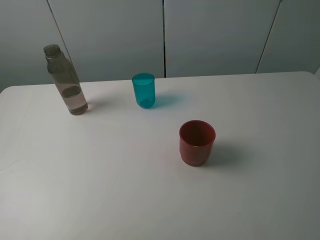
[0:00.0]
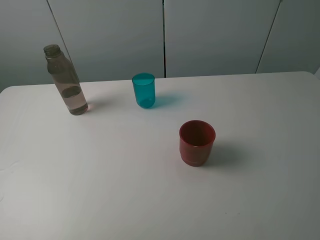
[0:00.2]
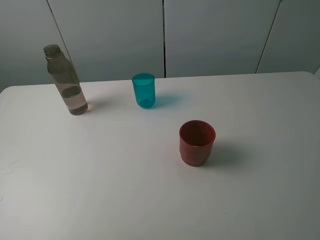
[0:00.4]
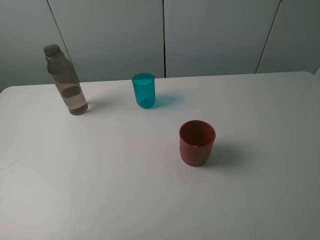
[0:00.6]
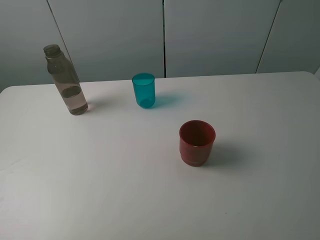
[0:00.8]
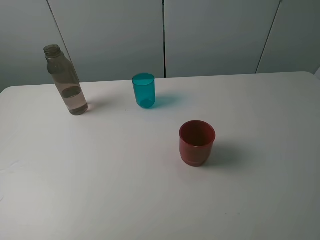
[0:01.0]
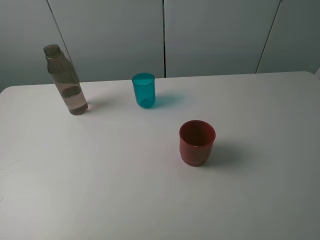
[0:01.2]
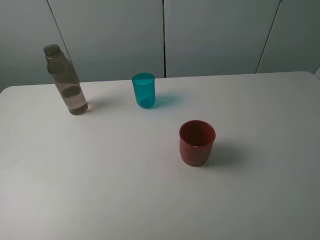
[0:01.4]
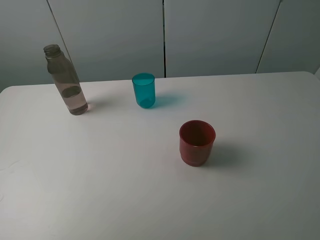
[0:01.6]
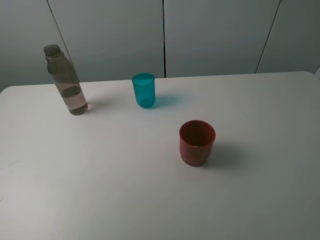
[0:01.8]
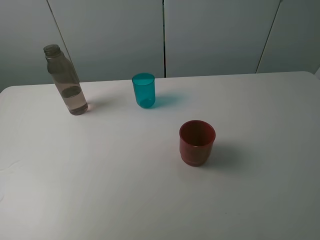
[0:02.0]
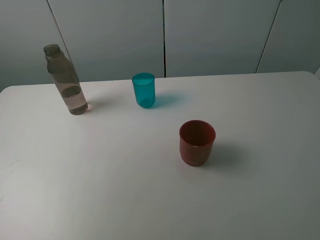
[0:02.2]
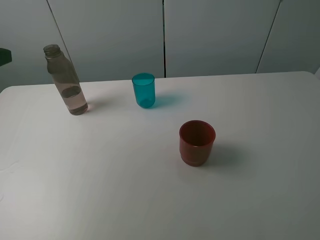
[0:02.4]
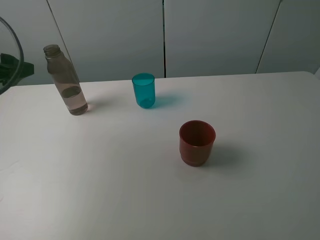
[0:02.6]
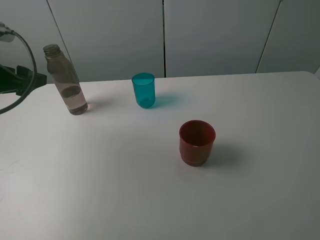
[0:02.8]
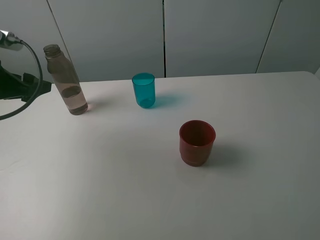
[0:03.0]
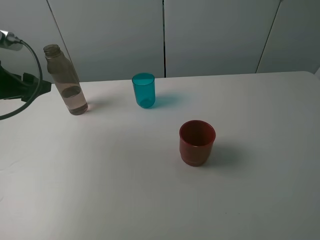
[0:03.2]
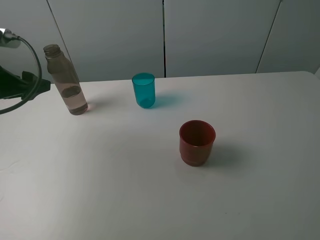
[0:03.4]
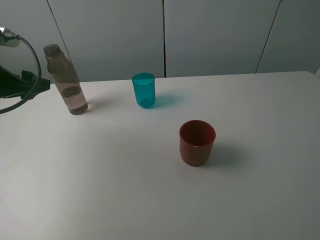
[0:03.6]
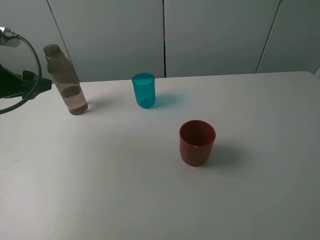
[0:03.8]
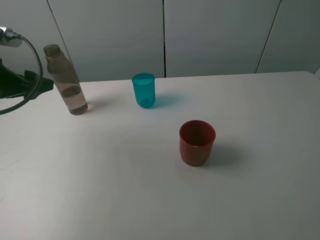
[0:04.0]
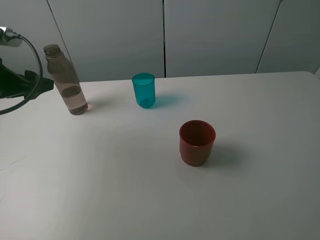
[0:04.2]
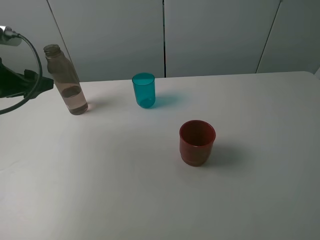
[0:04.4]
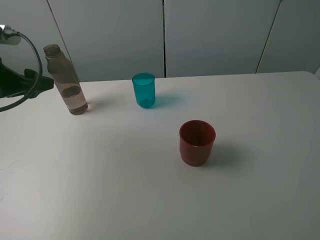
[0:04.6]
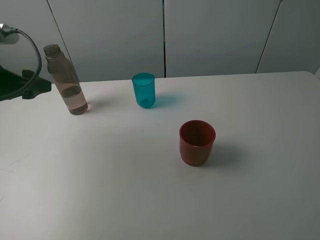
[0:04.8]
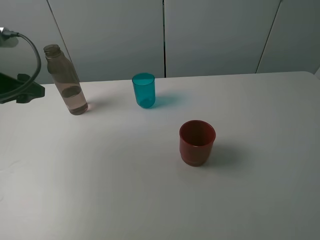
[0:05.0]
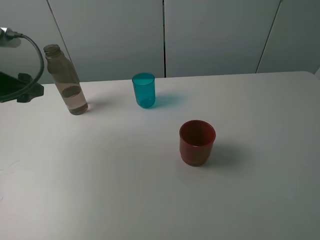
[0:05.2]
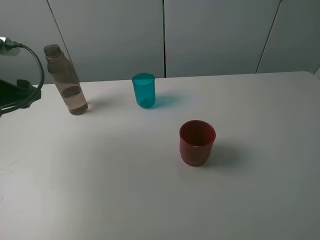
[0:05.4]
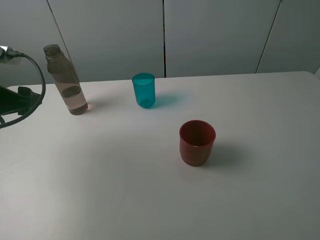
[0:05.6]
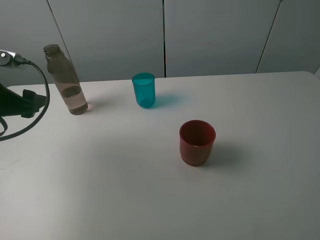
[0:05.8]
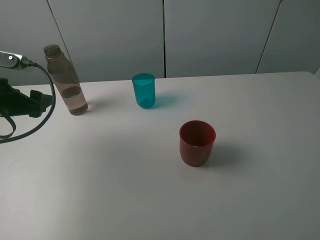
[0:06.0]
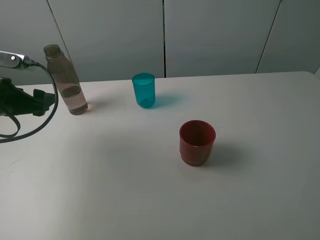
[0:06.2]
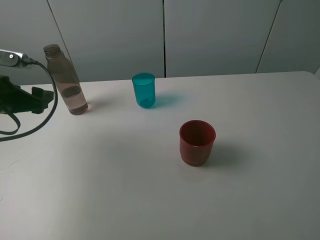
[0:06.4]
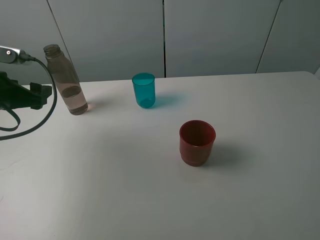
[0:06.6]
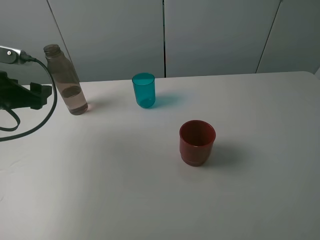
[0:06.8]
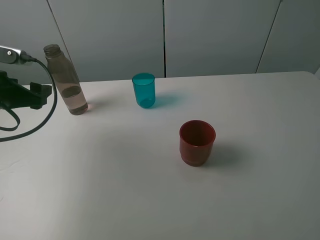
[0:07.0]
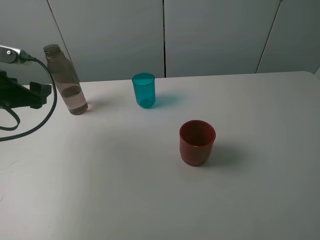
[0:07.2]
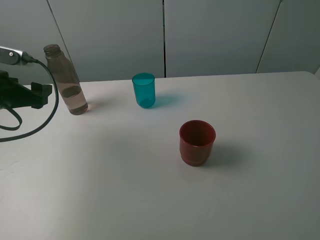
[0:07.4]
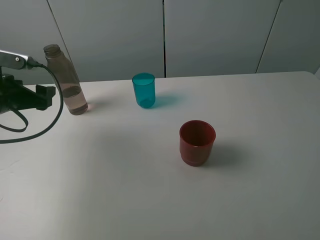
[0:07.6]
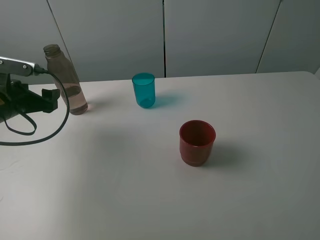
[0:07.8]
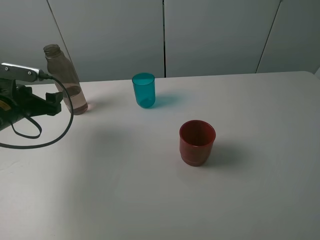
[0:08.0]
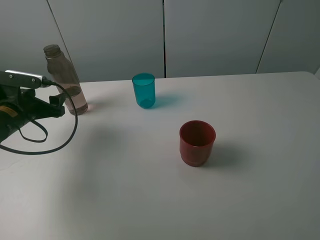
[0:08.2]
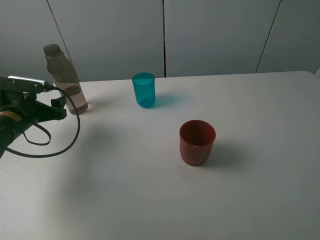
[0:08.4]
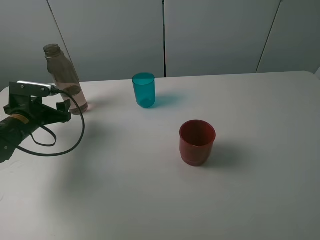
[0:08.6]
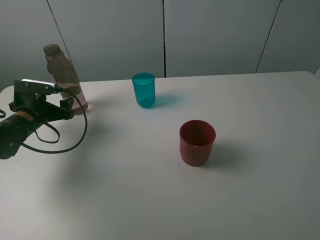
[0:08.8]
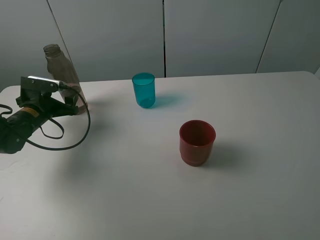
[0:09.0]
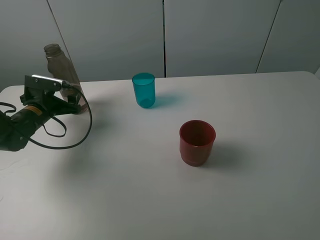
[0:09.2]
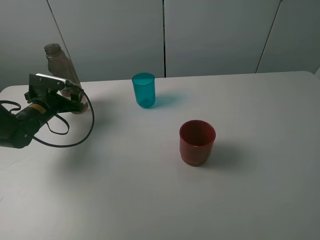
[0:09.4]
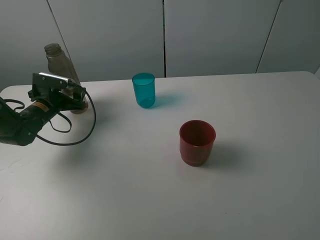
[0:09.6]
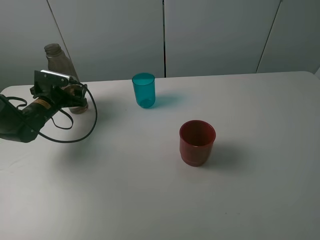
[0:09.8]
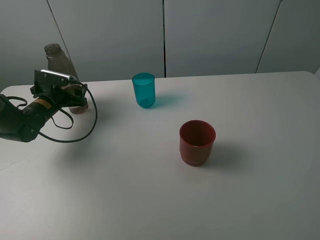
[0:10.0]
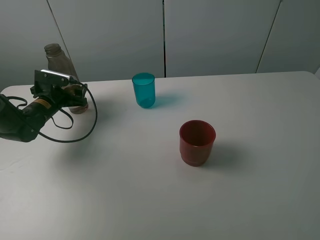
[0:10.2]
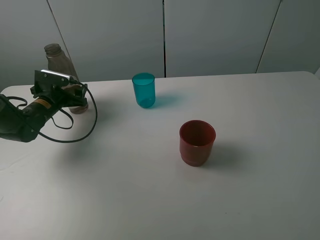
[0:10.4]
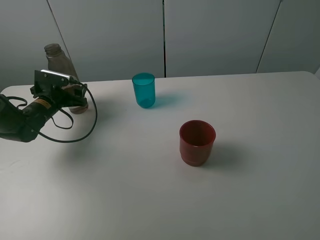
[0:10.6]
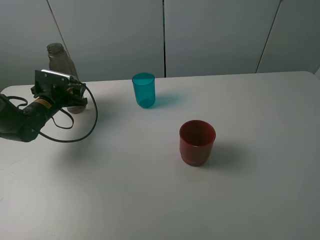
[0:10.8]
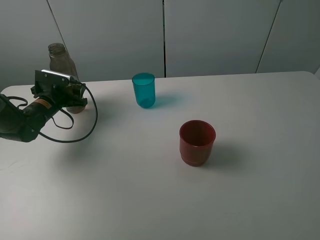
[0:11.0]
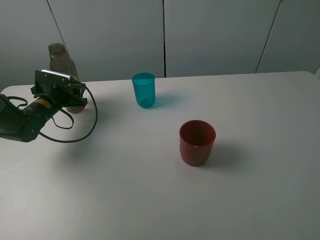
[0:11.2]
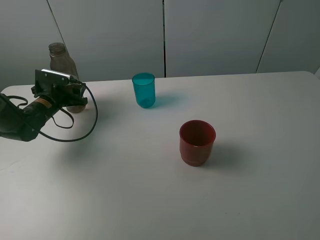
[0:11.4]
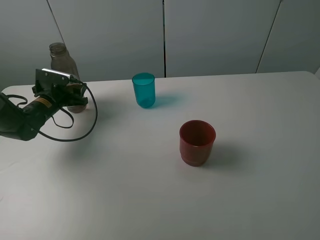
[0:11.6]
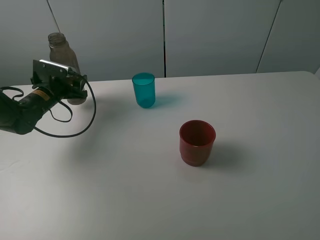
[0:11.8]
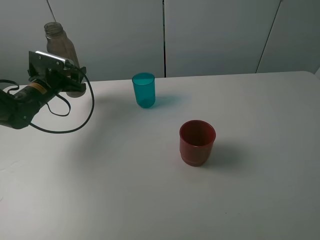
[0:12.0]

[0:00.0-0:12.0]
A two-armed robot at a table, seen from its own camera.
Task of the whole recording: pick up the bottle and pour water into the cup, then pick up the cup containing water and pour it into another cup.
Step, 0:00.0 to 0:11.0: Grasp the brown bottle with the left gripper.
0:01.6 to 0:03.0: The left gripper travels forward and downward by approximately 25 cm.
0:03.0 to 0:04.4: Neither gripper changes place.
0:04.4 to 0:07.6: There are only small adjustments of the grippers.
0:07.6 to 0:09.0: The left gripper heads downward and forward, covering roughly 10 cm.
0:09.0 to 0:10.4: There are only small adjustments of the grippers.
0:10.4 to 0:12.0: The left gripper moves upward, some 5 cm, and closes up.

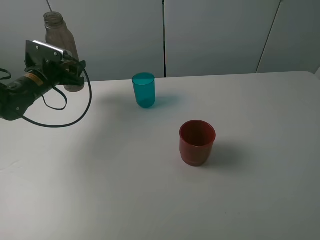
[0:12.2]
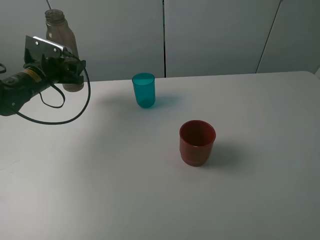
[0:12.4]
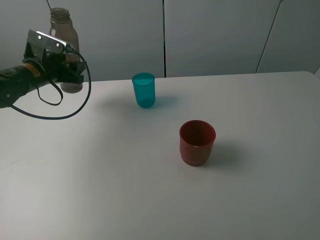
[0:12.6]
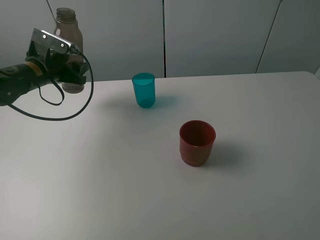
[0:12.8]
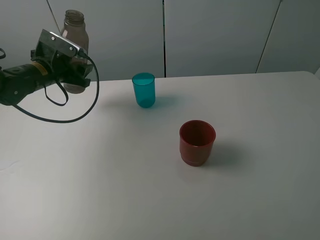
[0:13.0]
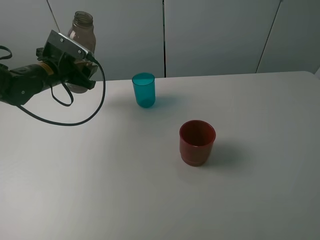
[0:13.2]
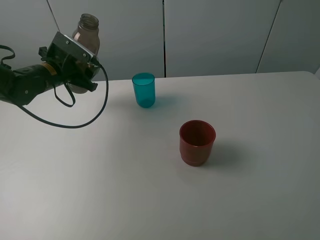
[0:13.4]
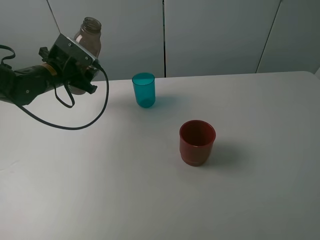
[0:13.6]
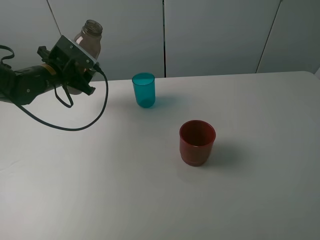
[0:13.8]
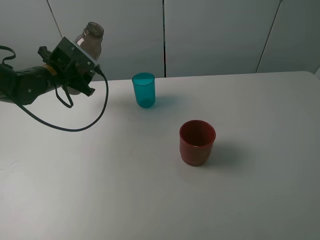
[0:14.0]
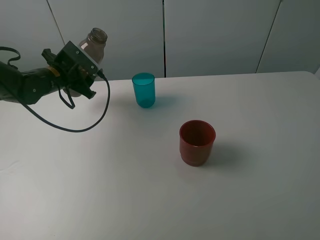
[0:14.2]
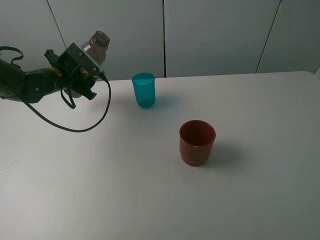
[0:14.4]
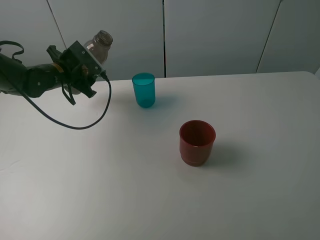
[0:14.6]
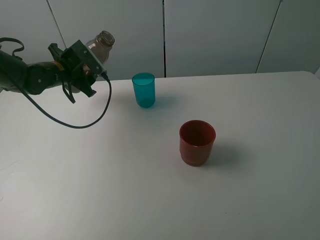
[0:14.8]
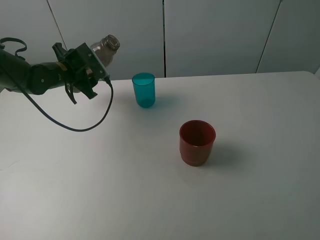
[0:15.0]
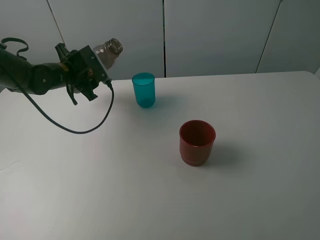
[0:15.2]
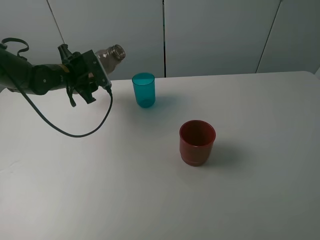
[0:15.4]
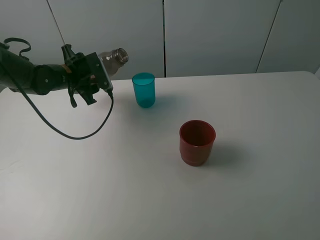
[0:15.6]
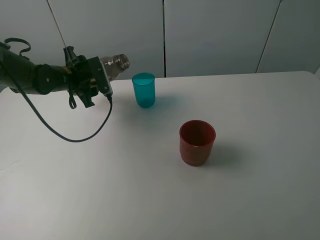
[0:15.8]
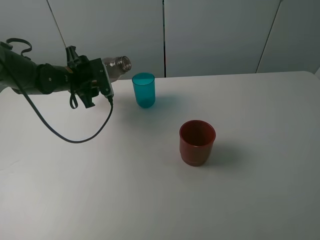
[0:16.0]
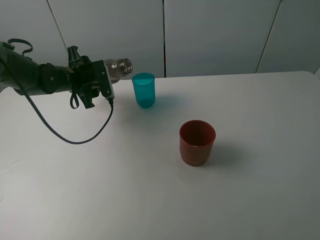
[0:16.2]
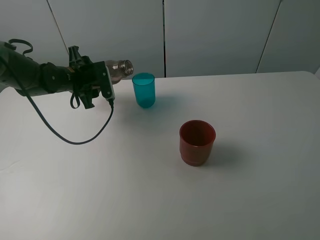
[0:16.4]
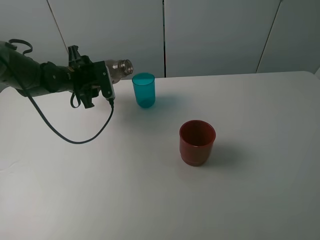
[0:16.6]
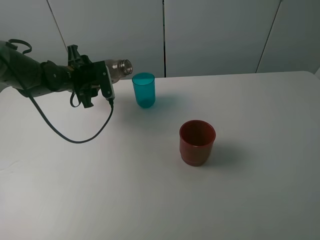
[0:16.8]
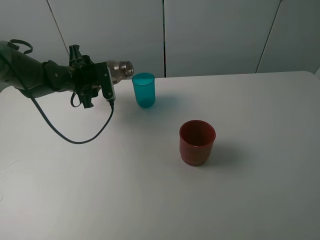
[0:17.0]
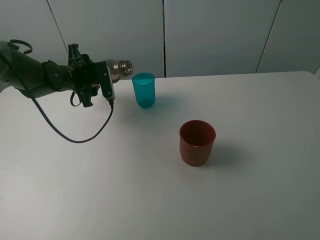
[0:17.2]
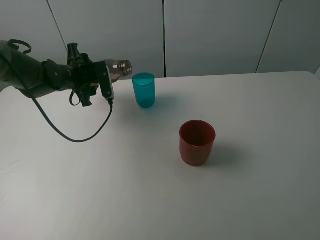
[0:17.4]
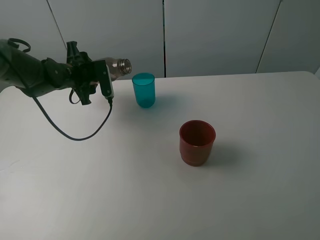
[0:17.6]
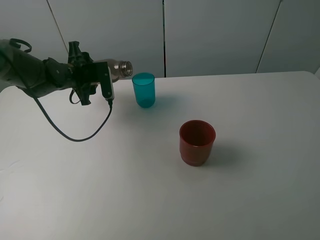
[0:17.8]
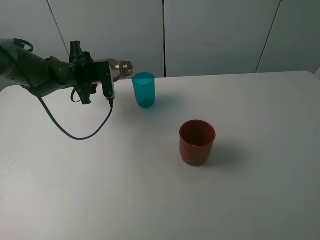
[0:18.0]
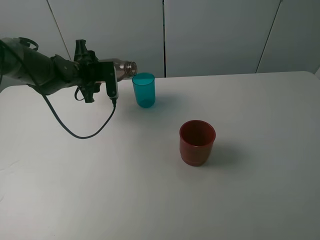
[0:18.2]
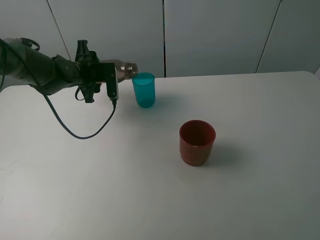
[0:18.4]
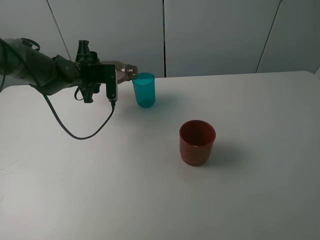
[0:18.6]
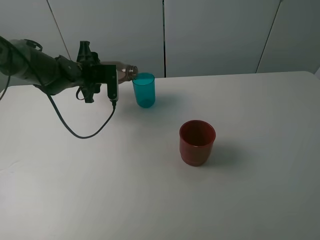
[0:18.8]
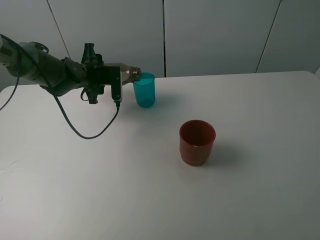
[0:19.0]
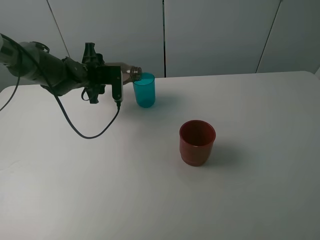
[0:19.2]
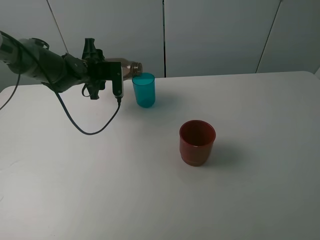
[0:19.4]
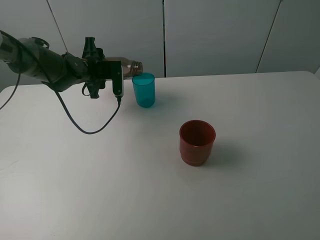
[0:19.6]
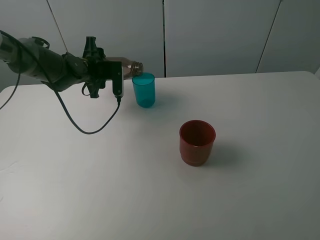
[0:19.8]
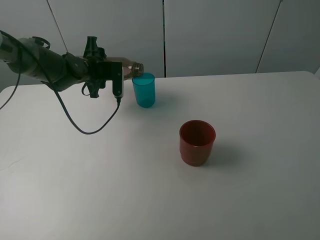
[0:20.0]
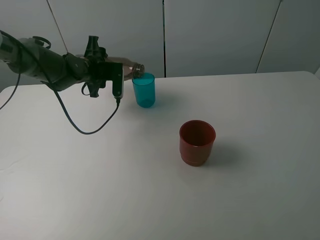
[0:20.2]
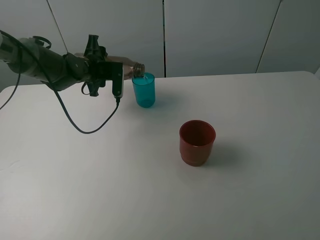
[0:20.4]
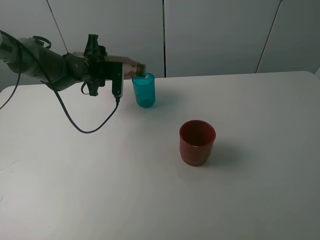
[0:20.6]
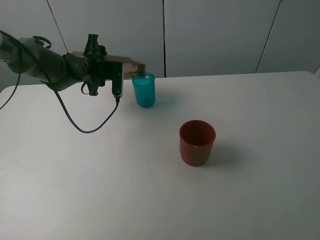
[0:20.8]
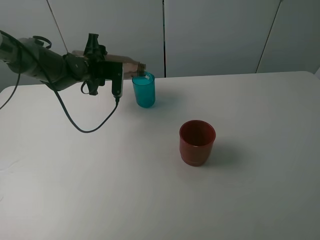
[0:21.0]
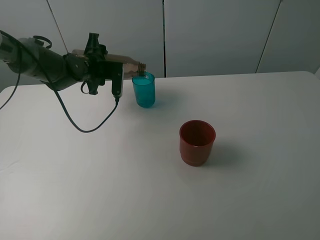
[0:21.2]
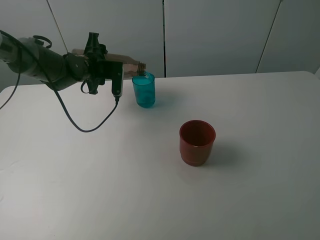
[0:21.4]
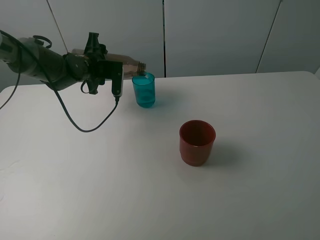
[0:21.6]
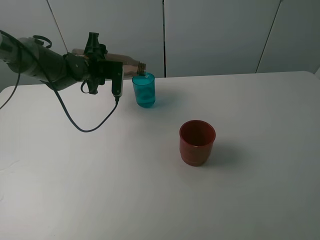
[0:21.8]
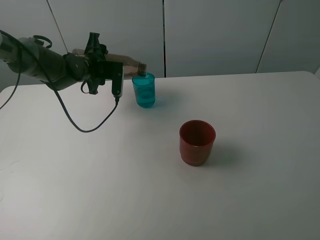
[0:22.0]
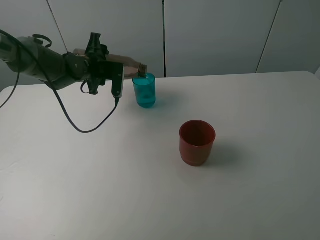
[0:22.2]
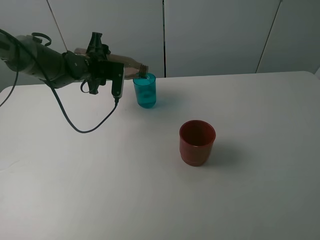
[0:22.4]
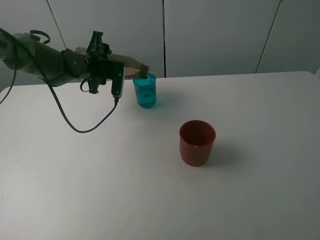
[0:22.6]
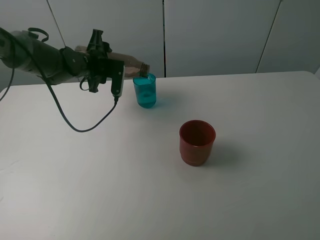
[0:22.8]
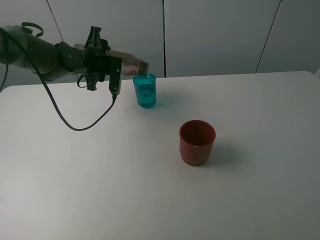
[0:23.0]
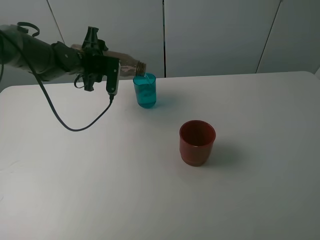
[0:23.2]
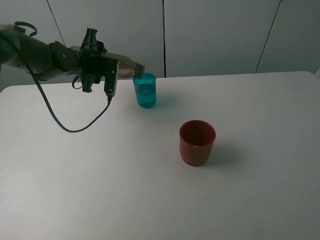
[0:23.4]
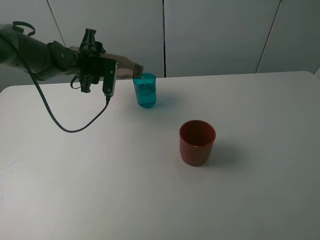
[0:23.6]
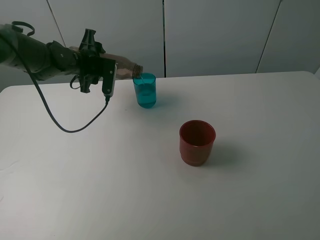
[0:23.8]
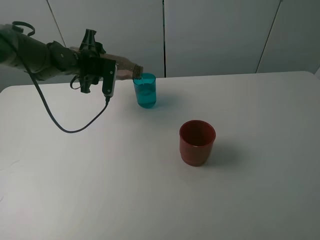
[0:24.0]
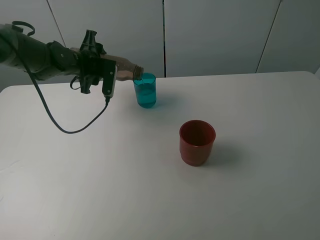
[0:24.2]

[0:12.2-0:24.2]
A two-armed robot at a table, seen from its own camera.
Task of the whole recording: pick up the bottle and pour water into the cup, then pick up the cup containing water and pour it into another cup.
0:12.2 to 0:13.8: The left gripper shifts by some 5 cm.
0:15.2 to 0:16.6: There are only small adjustments of the grippers.
0:16.6 to 0:19.8: The grippers stay close to where they were, moving slightly.
0:19.8 to 0:21.2: There are only small adjustments of the grippers.
0:21.2 to 0:22.6: Both grippers stay about where they are.
0:22.6 to 0:24.2: The grippers move only a little.
